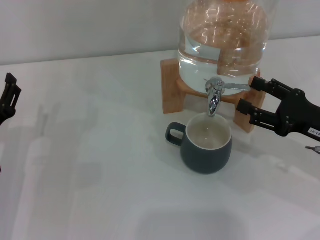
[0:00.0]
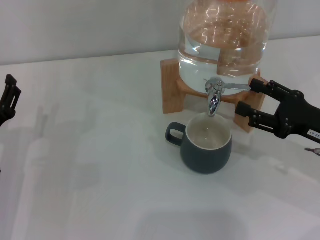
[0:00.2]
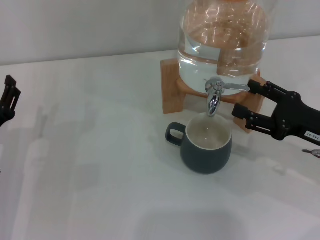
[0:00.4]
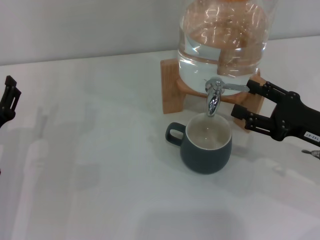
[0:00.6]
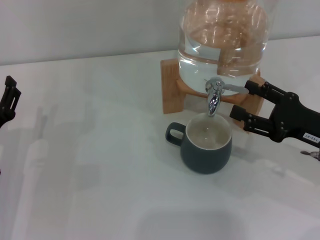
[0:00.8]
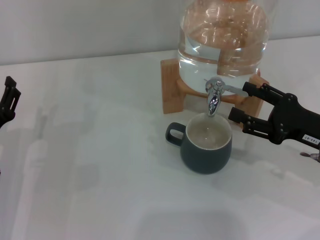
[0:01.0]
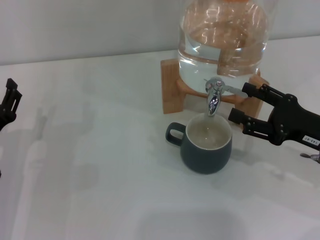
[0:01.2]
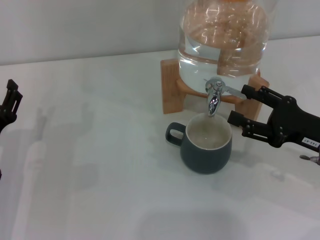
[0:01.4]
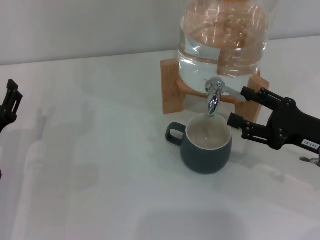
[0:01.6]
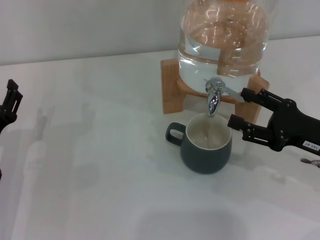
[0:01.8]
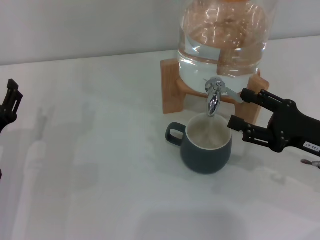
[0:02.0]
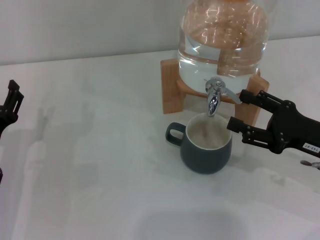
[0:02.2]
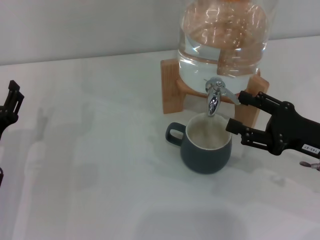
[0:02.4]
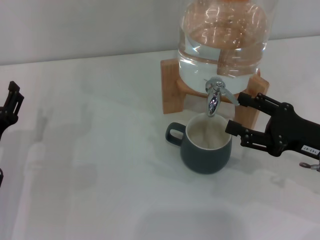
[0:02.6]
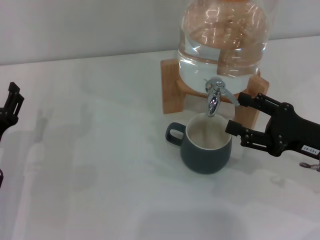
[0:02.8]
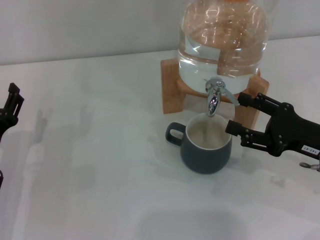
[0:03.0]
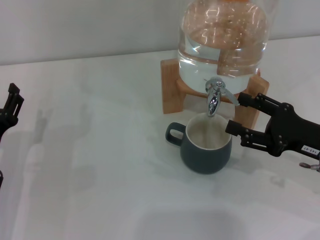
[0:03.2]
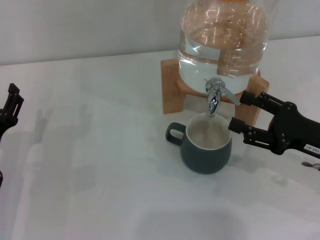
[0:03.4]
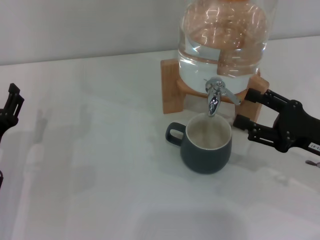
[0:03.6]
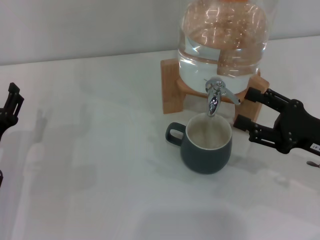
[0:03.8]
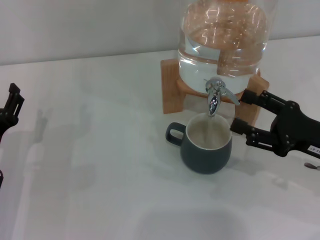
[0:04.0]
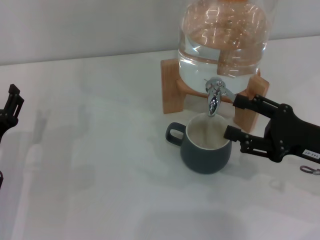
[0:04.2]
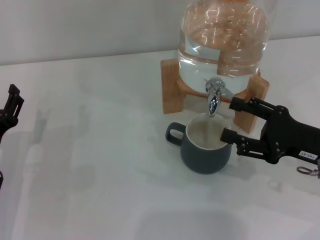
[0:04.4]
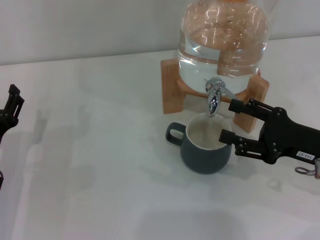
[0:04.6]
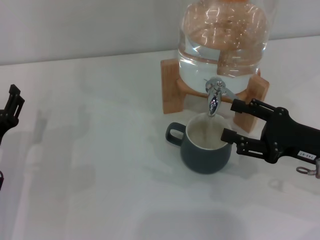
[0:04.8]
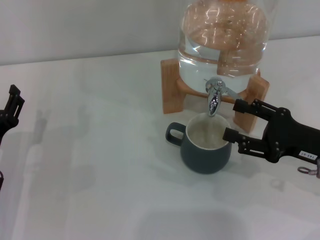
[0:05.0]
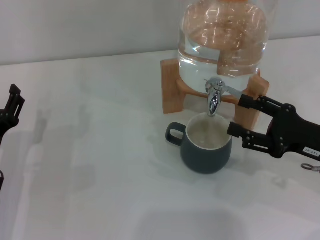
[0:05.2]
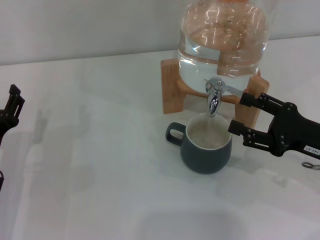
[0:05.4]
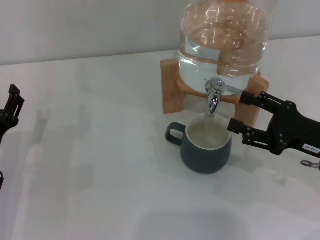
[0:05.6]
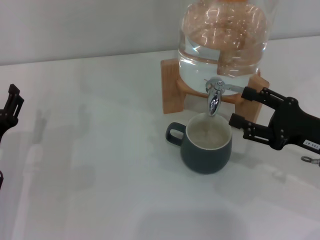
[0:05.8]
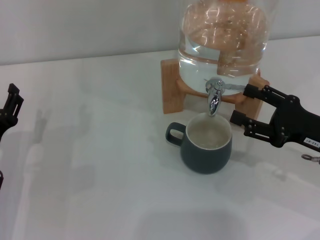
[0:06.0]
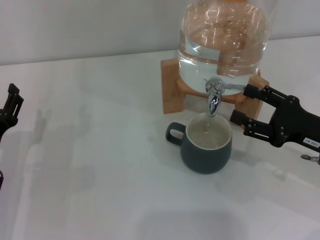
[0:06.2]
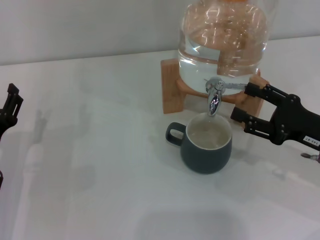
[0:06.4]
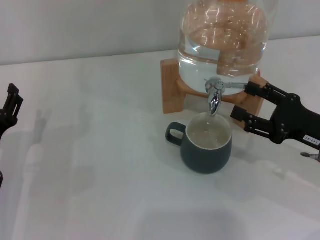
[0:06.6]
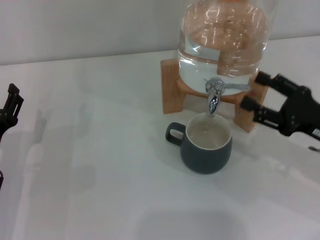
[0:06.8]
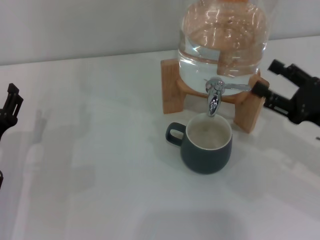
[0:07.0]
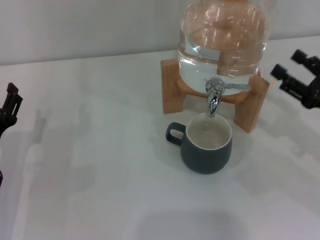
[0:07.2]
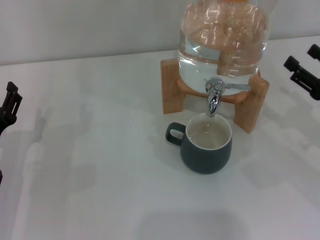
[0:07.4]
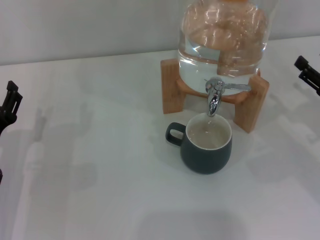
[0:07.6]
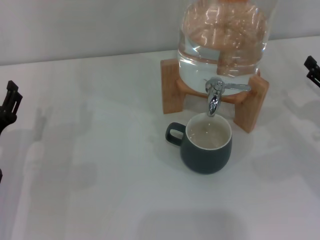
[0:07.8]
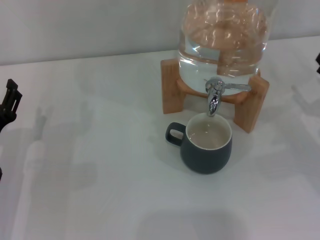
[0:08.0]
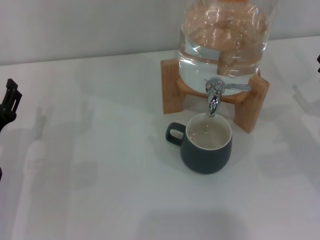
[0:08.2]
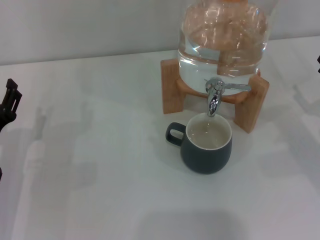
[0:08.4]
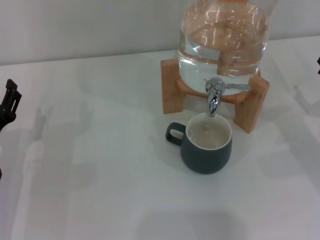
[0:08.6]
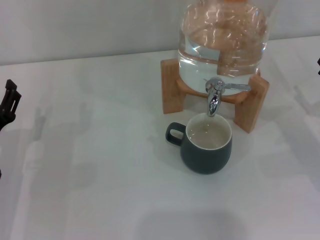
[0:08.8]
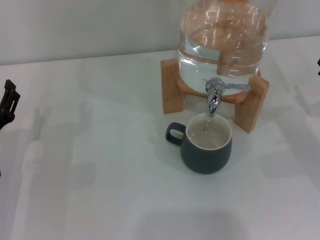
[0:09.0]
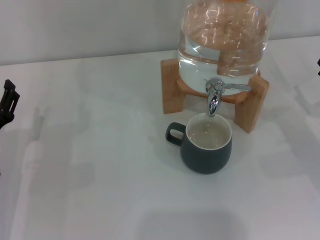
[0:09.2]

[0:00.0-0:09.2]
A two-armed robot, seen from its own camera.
Task of the whole recording: the left gripper pick up the black cup and place it horizontally under the faucet, the right gripper turn on the faucet to fill the cup, and then turn off the faucet.
Step, 0:00.0 to 0:03.6: Open the dispenser valve and fill the cup with water with the right gripper.
Step, 0:03.8 to 0:06.8: Close the dispenser valve with the right gripper.
0:00.0 to 0:01.6: Both grippers stay about where they are.
0:01.6 to 0:03.0: Both grippers stay put.
0:03.0 to 0:04.6: Both grippers stay about where they are.
0:04.6 to 0:06.2: The grippers move only a little.
0:06.2 to 0:07.6: The right gripper moves to the right, roughly 5 cm.
0:07.6 to 0:09.2: The grippers stay close to where they were, moving slightly.
